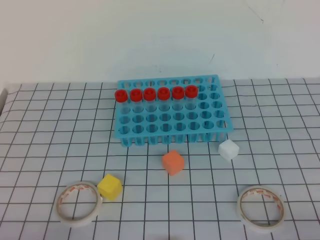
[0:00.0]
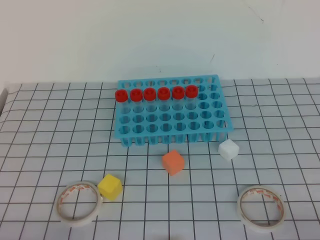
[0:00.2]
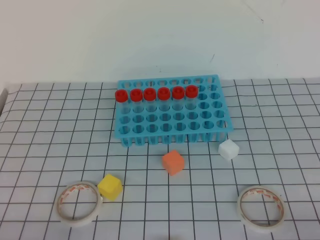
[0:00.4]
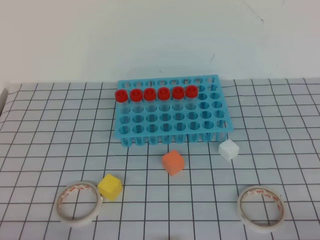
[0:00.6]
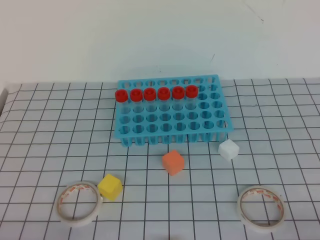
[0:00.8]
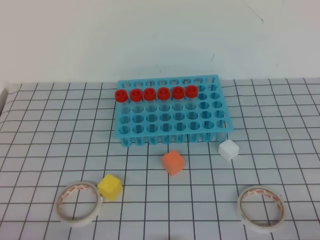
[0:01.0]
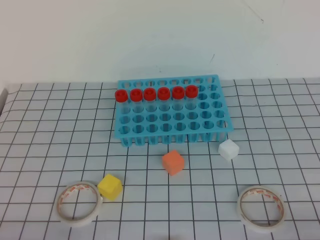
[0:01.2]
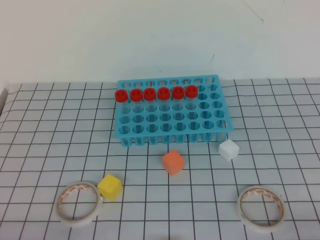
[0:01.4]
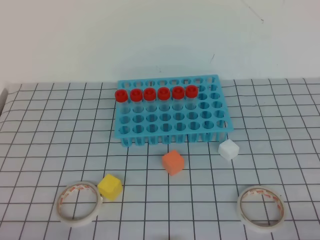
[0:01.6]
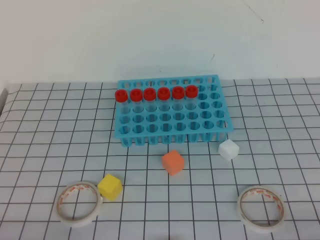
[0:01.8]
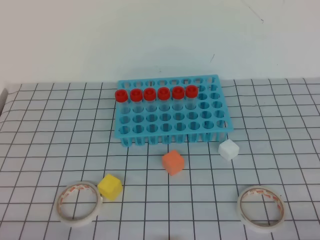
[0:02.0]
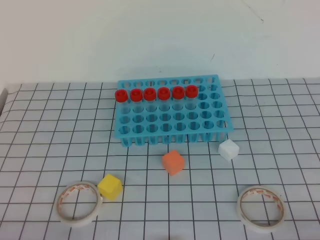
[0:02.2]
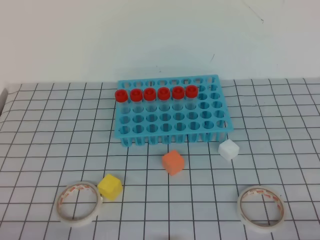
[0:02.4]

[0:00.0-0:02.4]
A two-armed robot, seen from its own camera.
0:01.2 to 0:02.4: Neither gripper changes place.
